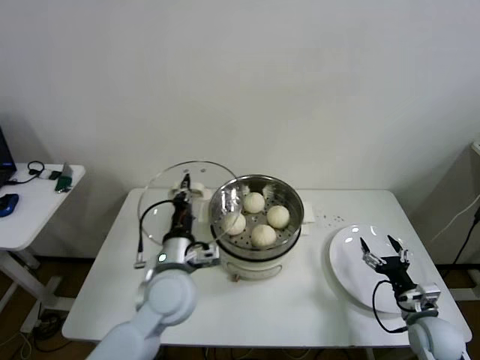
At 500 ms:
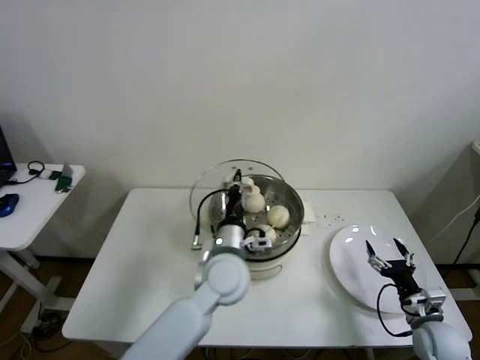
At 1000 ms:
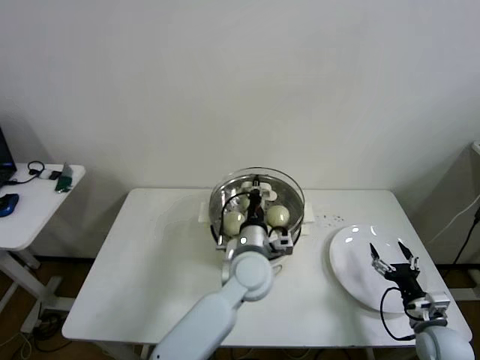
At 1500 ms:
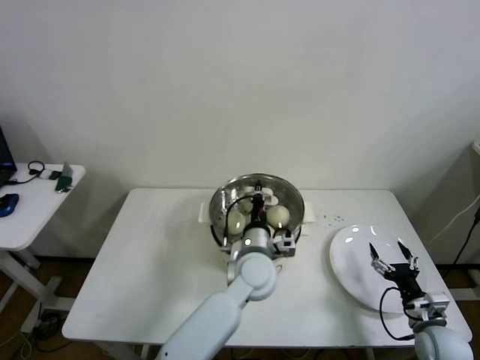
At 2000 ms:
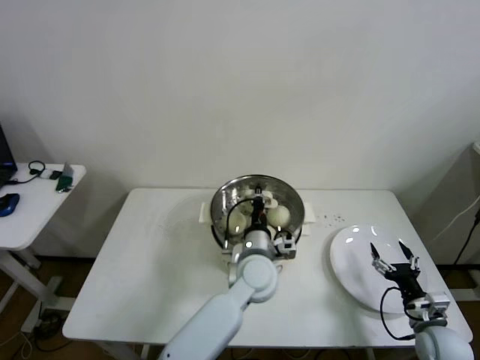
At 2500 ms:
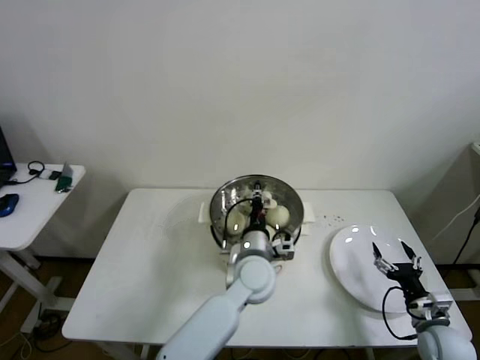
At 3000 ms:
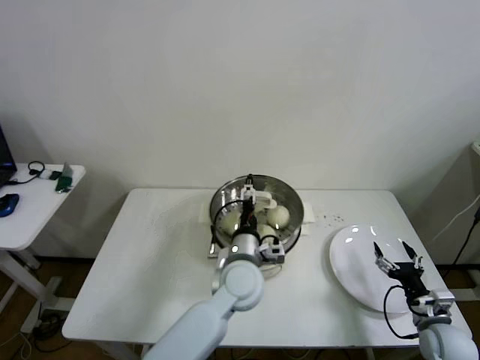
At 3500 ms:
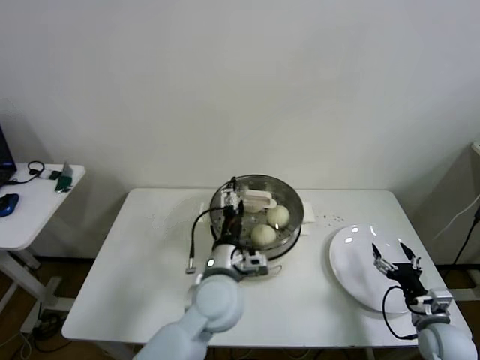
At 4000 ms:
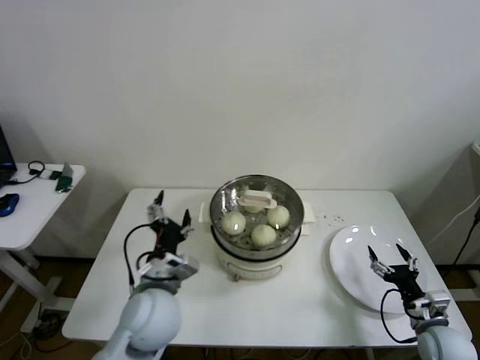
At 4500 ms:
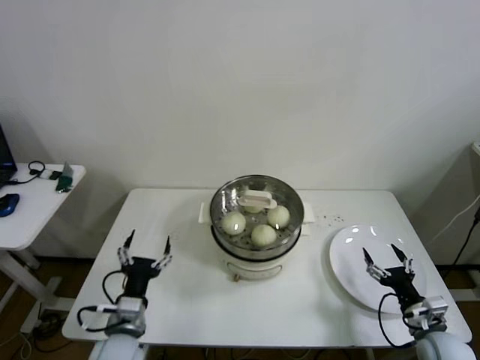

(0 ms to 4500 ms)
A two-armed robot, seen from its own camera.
Step, 0 ms - 2500 ms: Place the pot lid on the steamer with left gripper.
0 ms - 2000 ms: The left gripper heads to the right, covering about 15 cm.
2000 ms - 4500 ms: The left gripper travels to the left and backward by about 30 cm, and opens up.

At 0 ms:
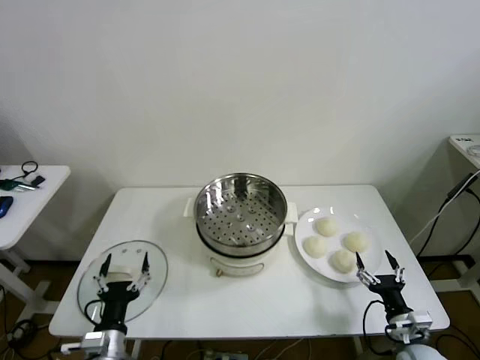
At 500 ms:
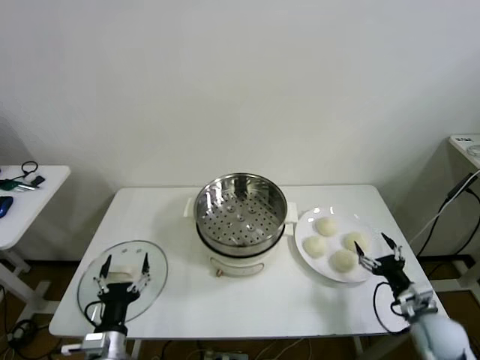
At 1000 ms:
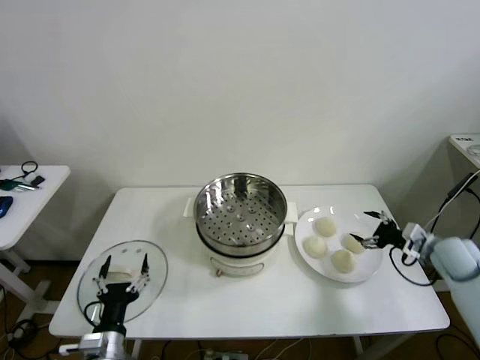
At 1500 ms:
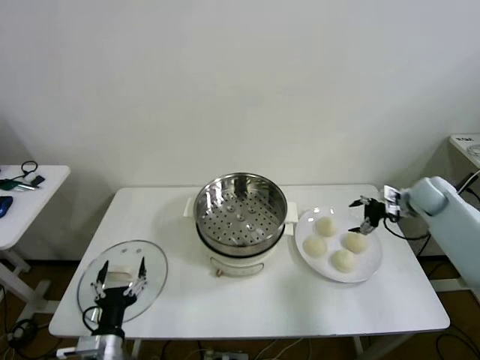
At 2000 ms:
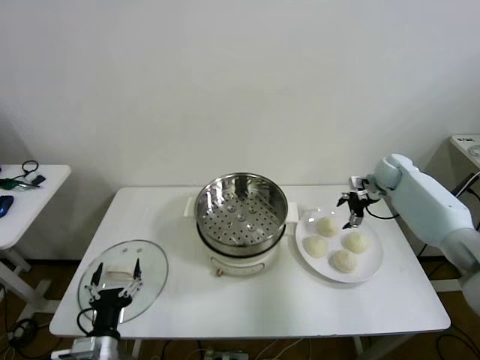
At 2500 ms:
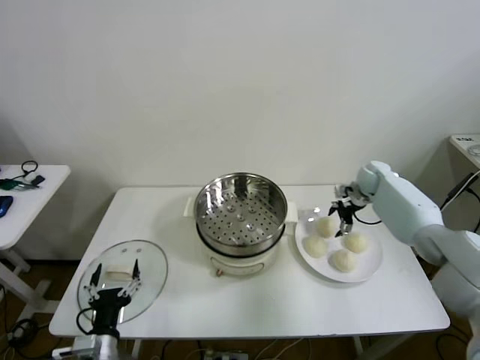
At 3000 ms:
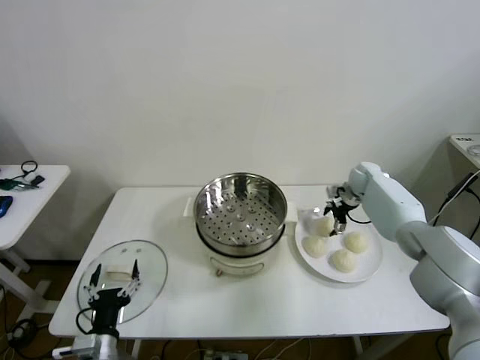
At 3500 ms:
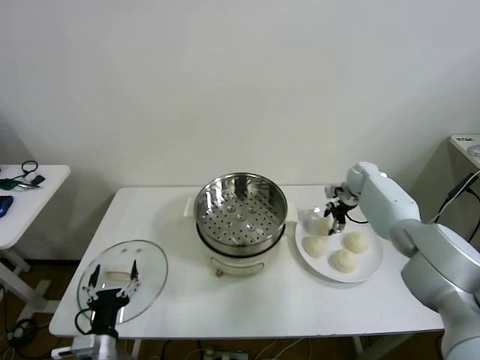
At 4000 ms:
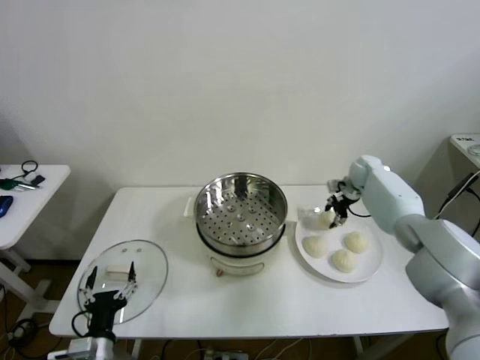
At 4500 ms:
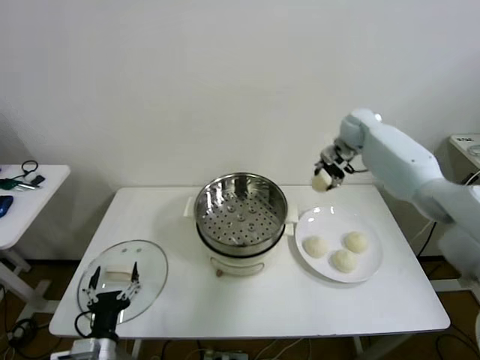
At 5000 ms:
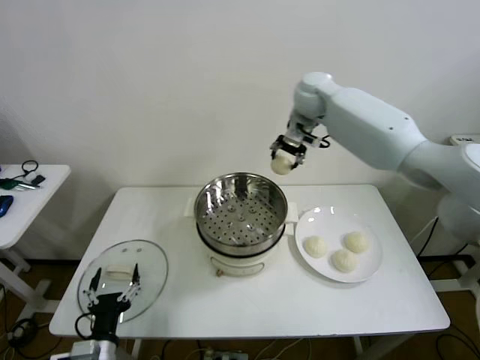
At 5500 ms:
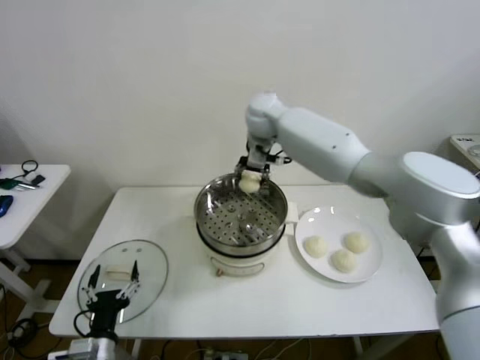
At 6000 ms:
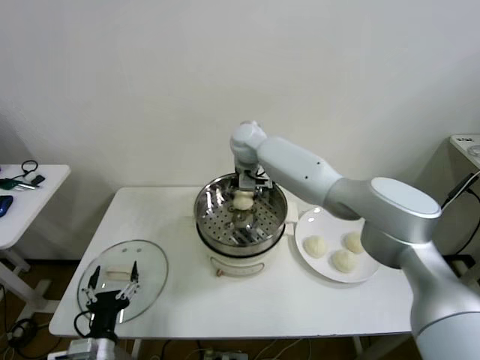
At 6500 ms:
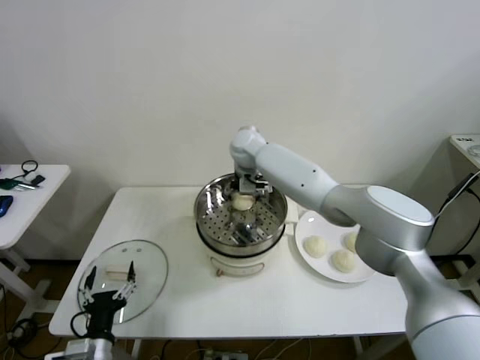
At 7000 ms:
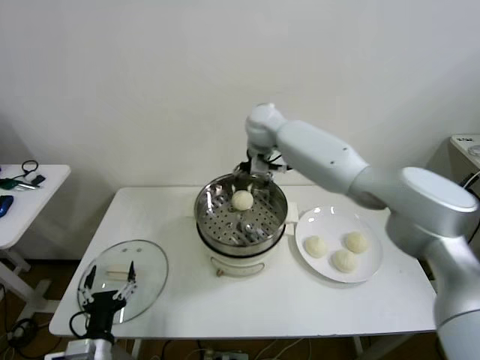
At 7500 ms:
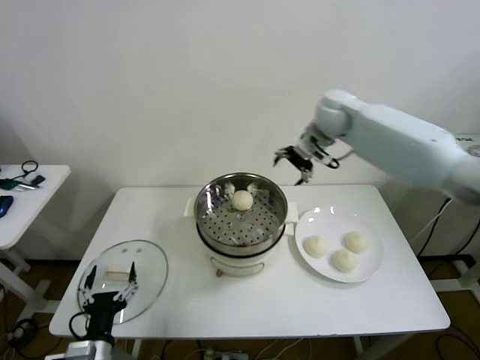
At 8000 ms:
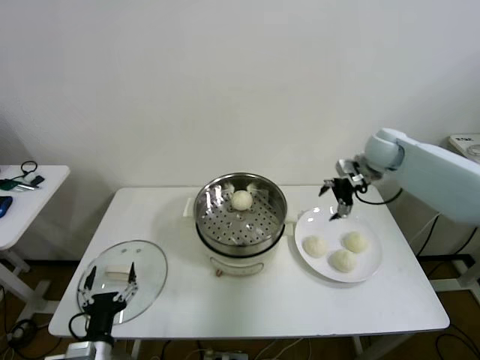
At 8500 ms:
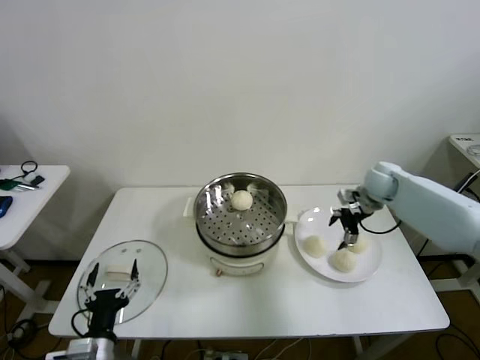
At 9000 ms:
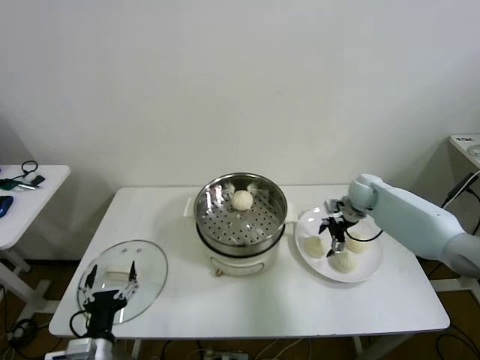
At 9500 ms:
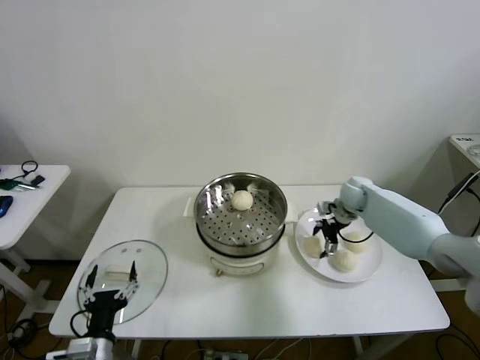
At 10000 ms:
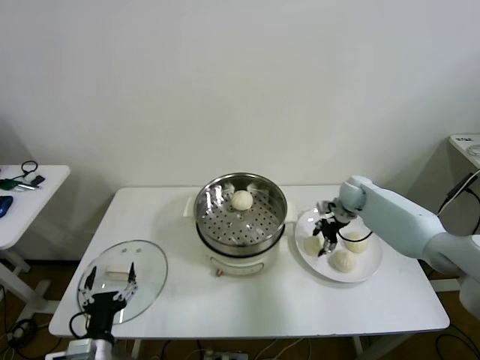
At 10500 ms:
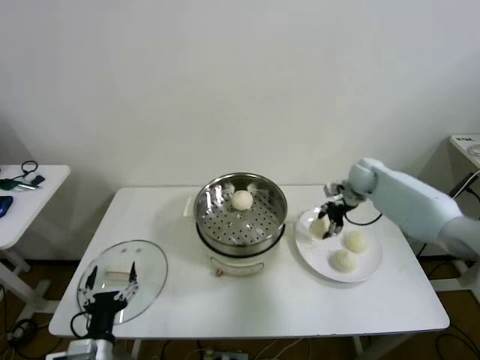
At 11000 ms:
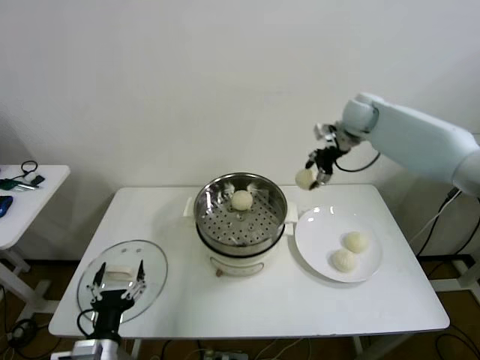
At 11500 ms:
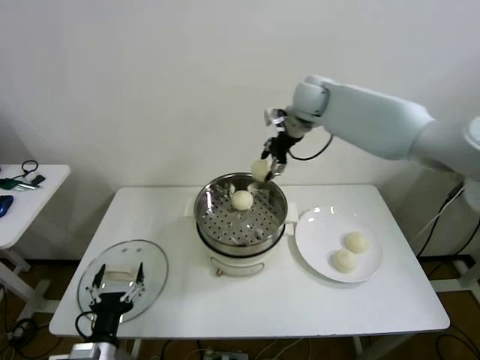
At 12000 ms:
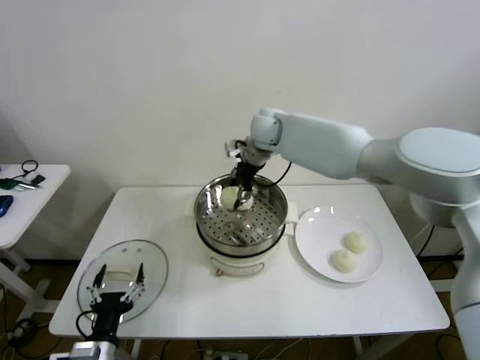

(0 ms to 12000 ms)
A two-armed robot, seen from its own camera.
Step, 0 ms - 3500 ms: Grasp the baozi in the plate with right gripper.
Step, 4000 ms - 6000 ms: Place the baozi on the steamer with right gripper.
Step, 7000 ms - 9500 ms: Grasp the baozi in the plate with right gripper.
2000 ms - 4000 ms: The right gripper ends up about 5 cm from where it was, and closes up.
4000 ms - 6000 ms: The right gripper is displaced to the left by roughly 35 cm.
6000 ms - 8000 ms: The right gripper moves to the right, roughly 35 cm, and opens up.
8000 ms - 10000 ms: The right gripper travels downward by approximately 15 cm, and closes.
10000 ms - 12000 ms: The right gripper moves to the left and upward, roughly 35 cm.

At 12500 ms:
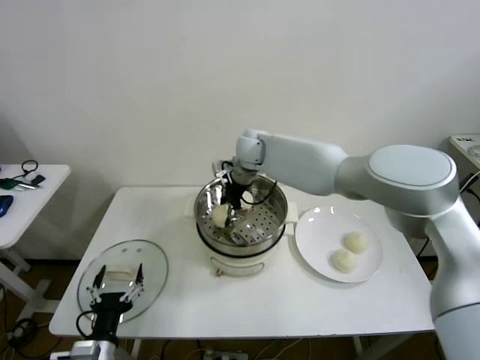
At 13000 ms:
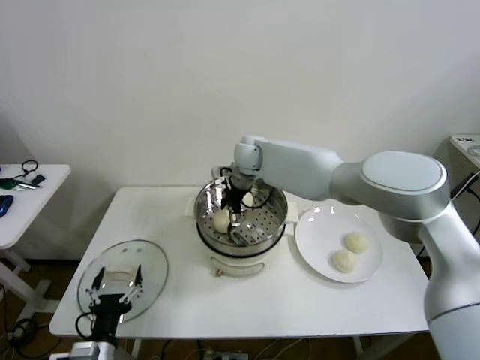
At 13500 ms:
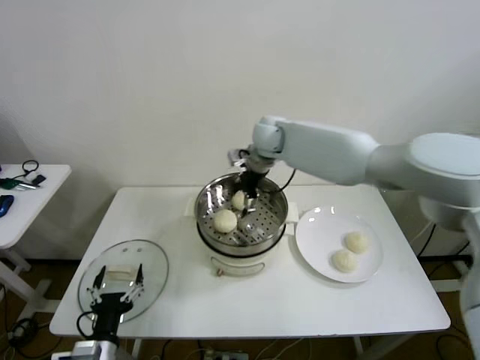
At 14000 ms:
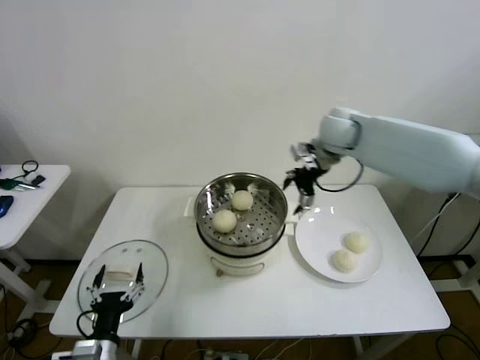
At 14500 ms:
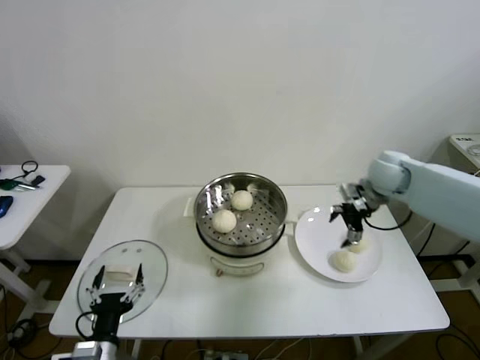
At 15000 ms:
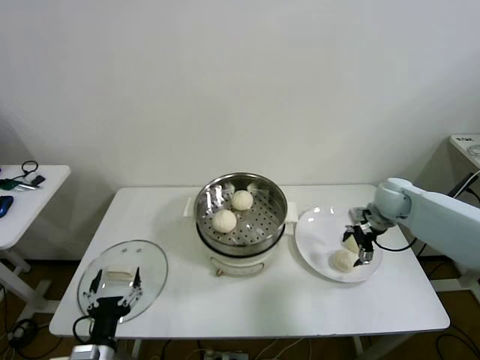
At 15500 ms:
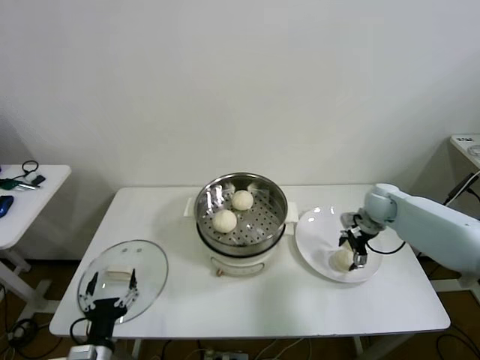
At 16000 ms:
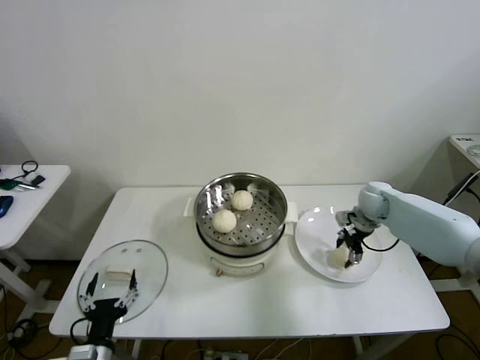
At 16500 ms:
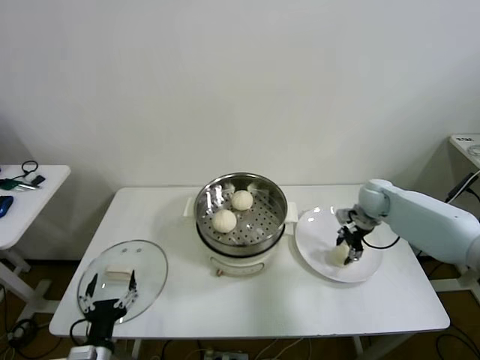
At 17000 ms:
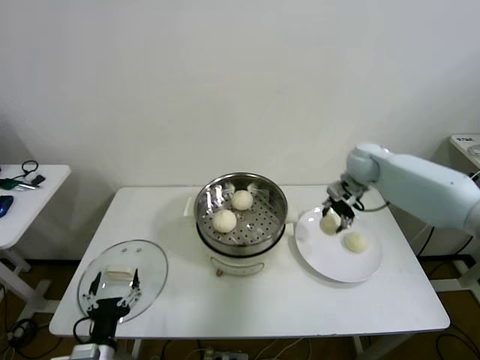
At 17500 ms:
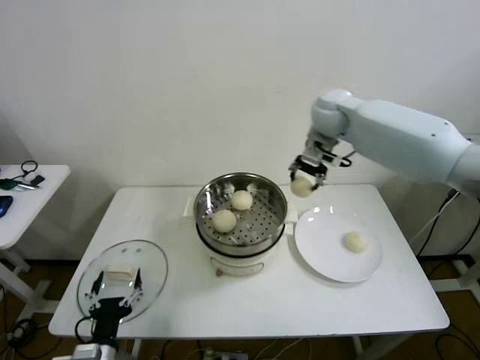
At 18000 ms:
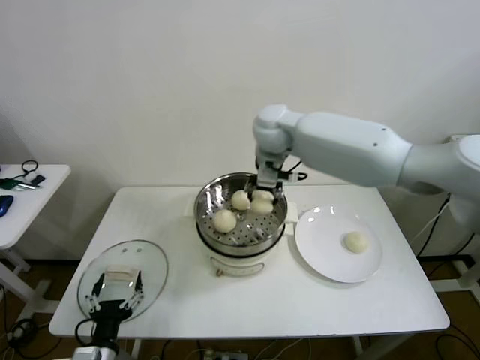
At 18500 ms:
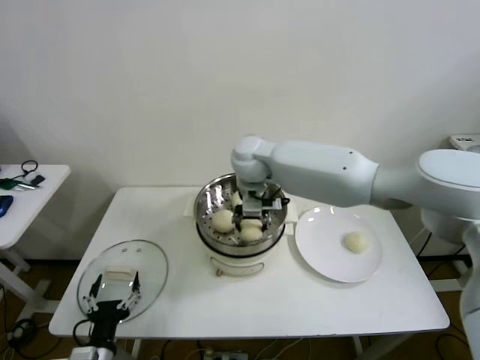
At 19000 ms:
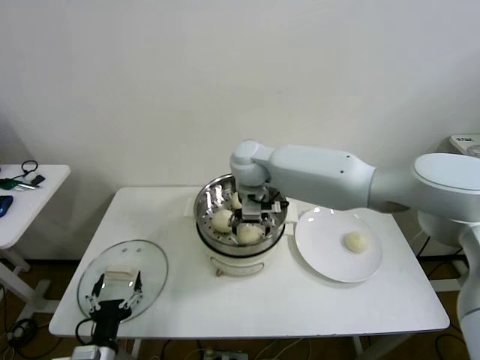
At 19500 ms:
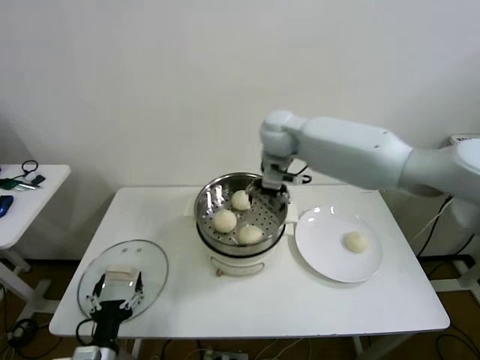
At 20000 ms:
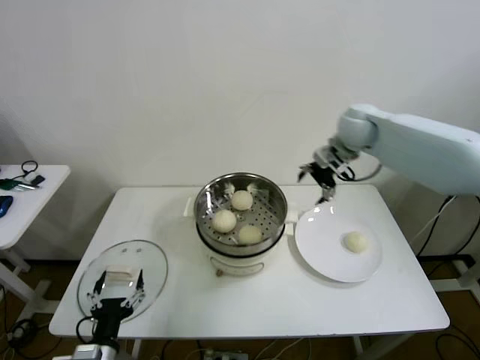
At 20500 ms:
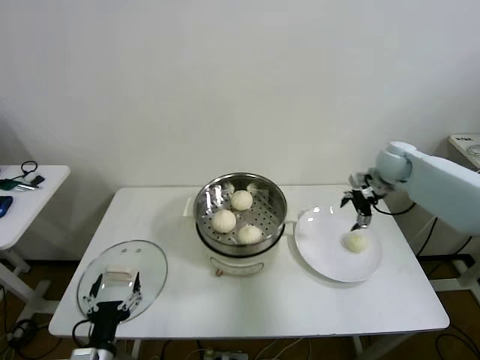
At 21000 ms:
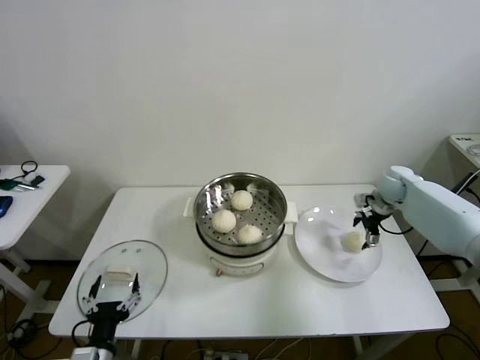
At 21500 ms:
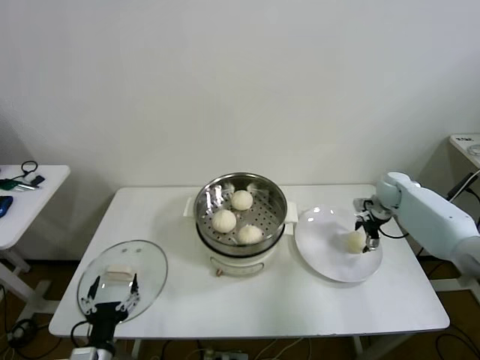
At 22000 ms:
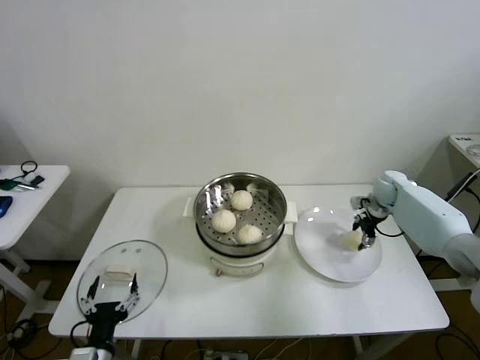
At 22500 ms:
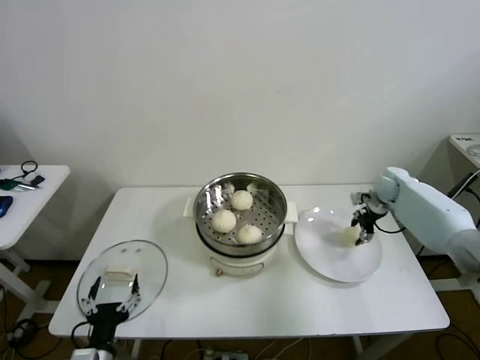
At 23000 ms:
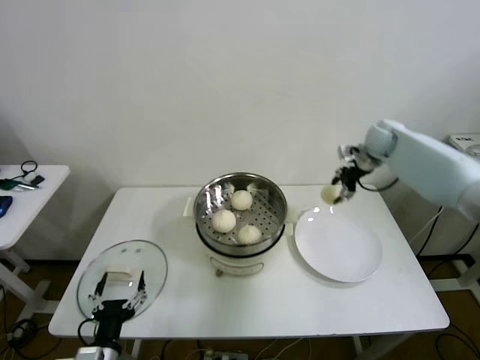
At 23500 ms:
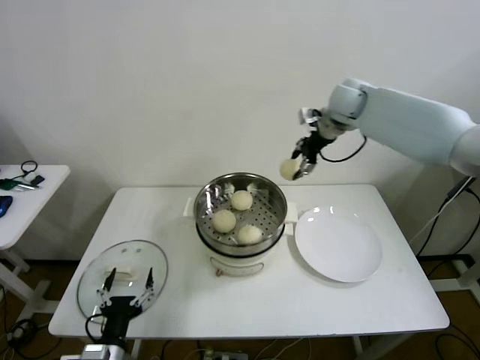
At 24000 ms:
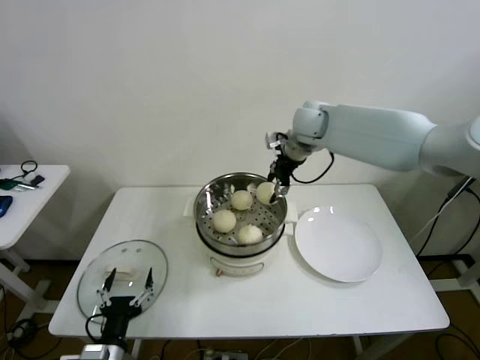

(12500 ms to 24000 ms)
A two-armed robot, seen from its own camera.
Step, 13000 ms - 16000 ms: Grasp the baozi in the plate with right gripper.
Step, 16500 ms - 19000 ms: Place the baozi on the steamer with right gripper.
Step, 19500 ms - 22000 ms: Grasp the baozi in the plate with right gripper.
12500 ms - 14500 ms: The right gripper heads to the right, covering some 30 cm, and opens up.
14500 ms - 16500 ms: The right gripper is displaced downward by about 10 cm, and closes.
16500 ms - 18500 ms: The right gripper goes some 35 cm to the left and upward.
18500 ms - 20000 ms: The right gripper is displaced to the right by roughly 25 cm, and opens.
20000 ms - 22000 ms: The right gripper moves downward and to the right, roughly 25 cm, and closes.
22000 ms - 24000 ms: The right gripper shifts about 35 cm to the left and upward.
